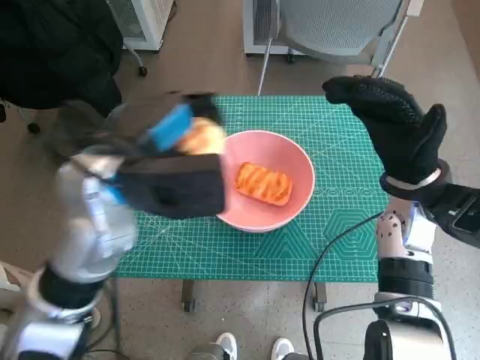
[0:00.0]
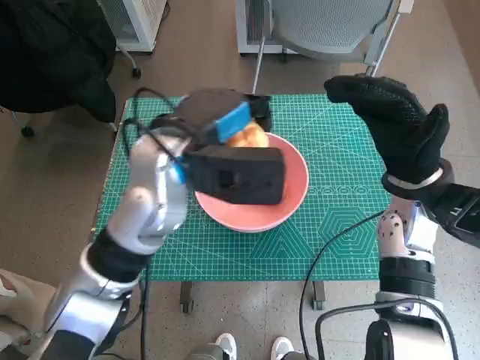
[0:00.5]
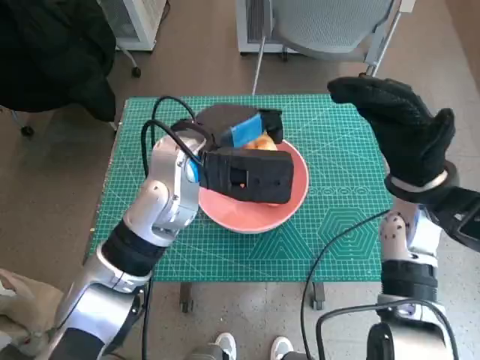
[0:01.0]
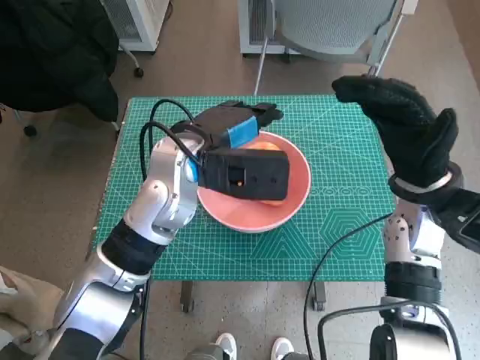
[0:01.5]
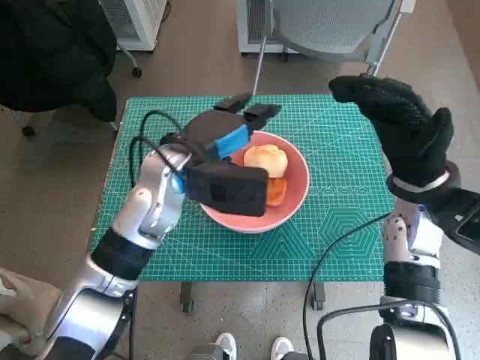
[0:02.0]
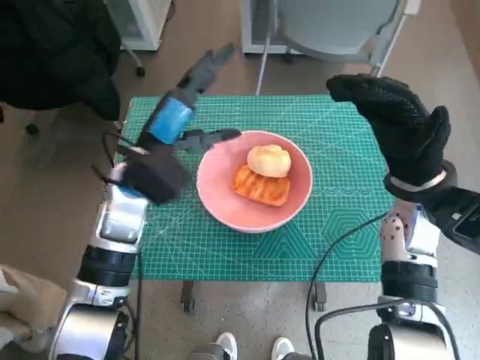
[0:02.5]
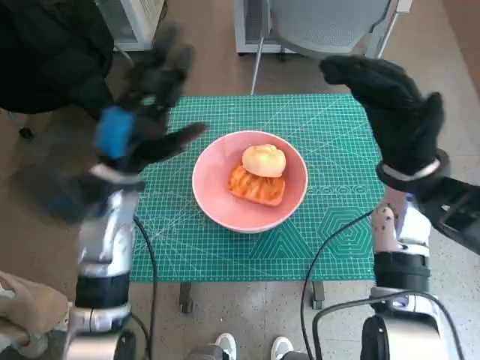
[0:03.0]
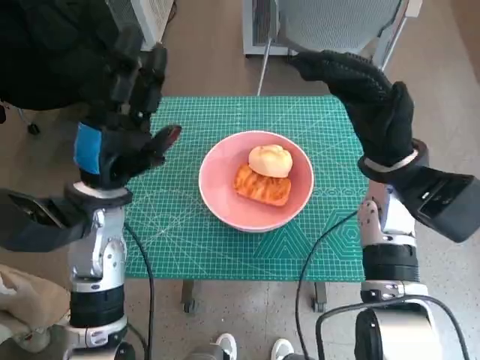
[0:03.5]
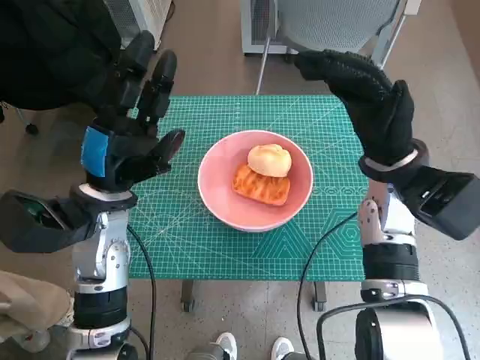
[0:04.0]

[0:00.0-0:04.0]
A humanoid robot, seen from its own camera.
0:00.0 to 0:02.0: The left hand heads downward and forward, covering about 10 cm.
0:02.0 to 0:04.0: The left hand goes about 10 cm to the left and backward.

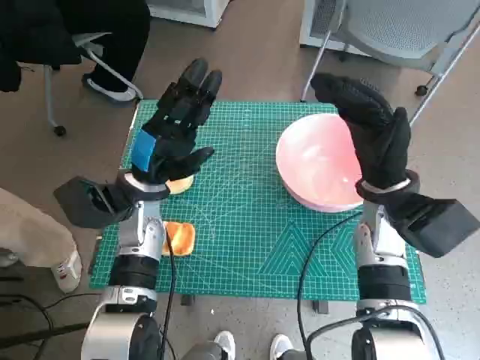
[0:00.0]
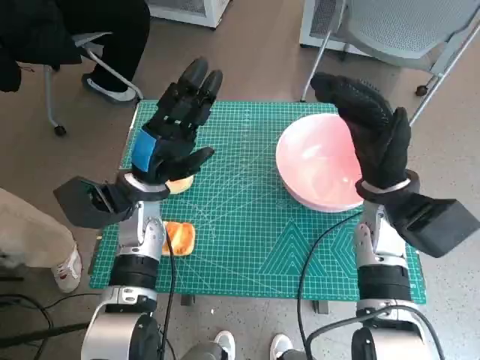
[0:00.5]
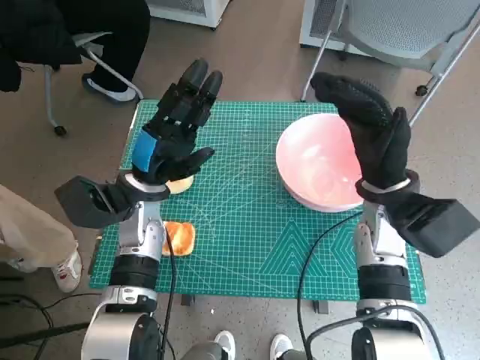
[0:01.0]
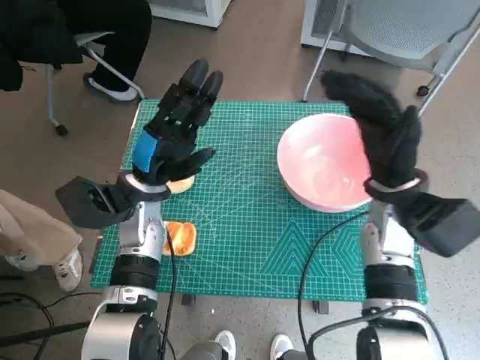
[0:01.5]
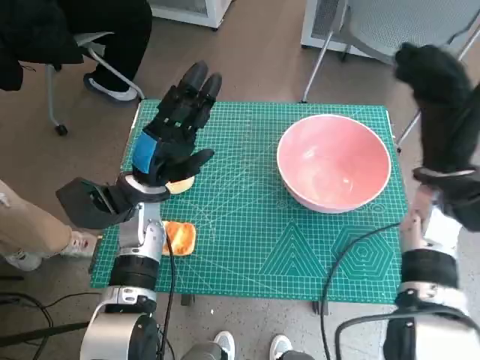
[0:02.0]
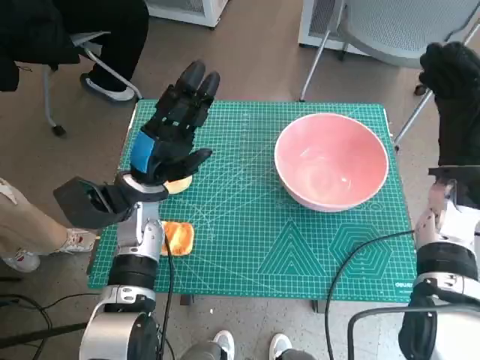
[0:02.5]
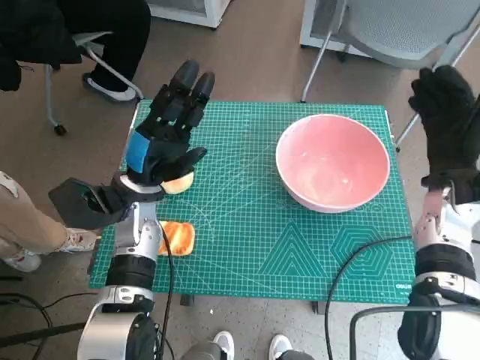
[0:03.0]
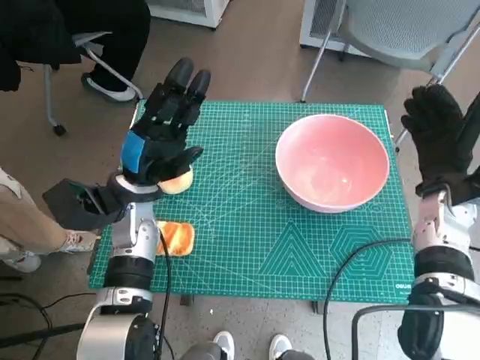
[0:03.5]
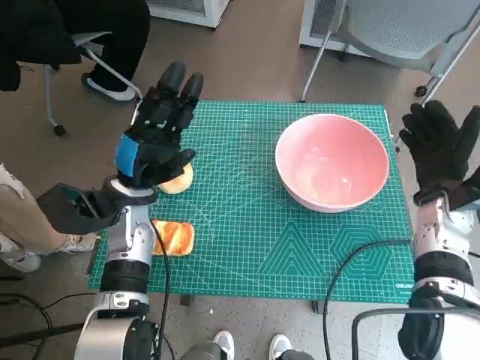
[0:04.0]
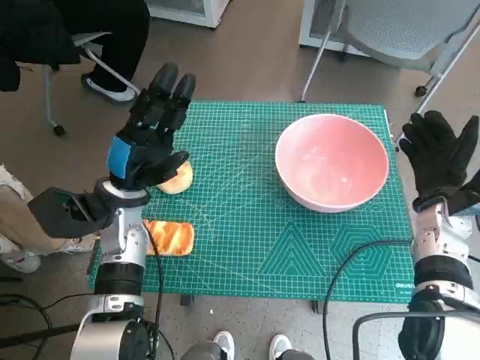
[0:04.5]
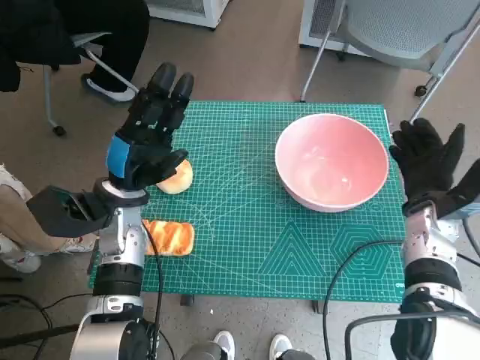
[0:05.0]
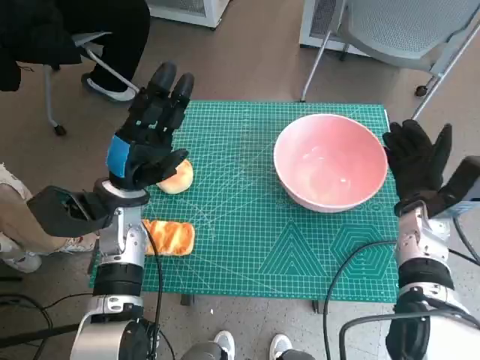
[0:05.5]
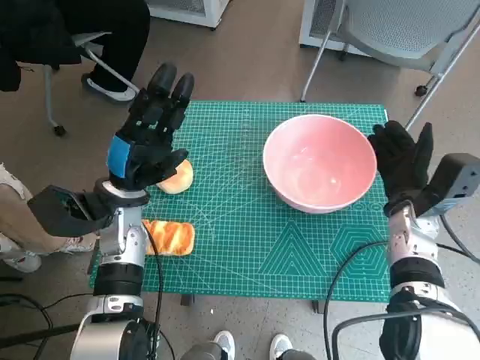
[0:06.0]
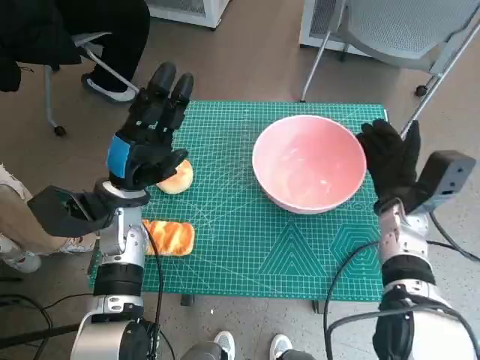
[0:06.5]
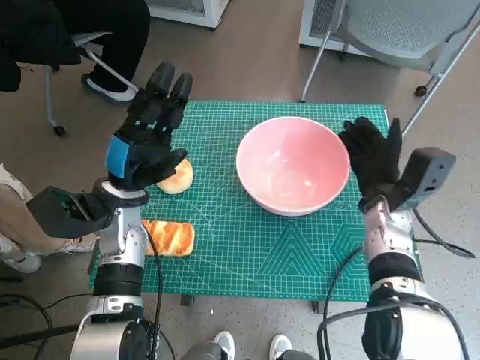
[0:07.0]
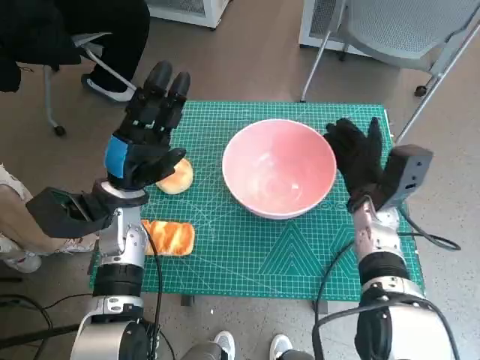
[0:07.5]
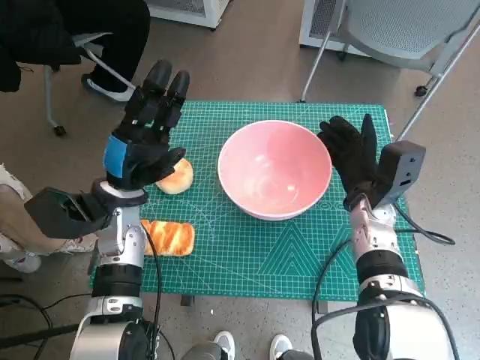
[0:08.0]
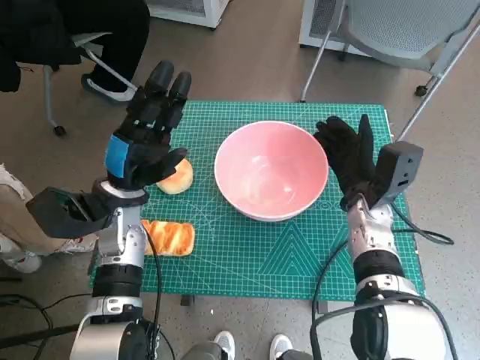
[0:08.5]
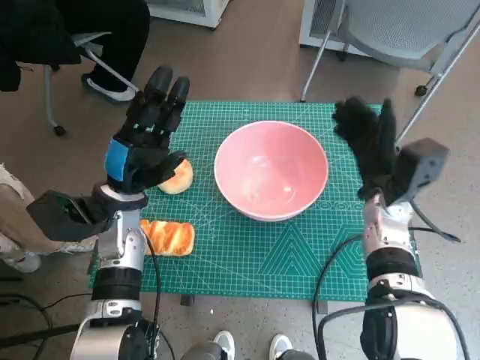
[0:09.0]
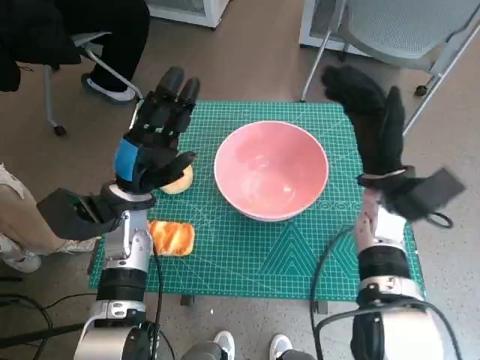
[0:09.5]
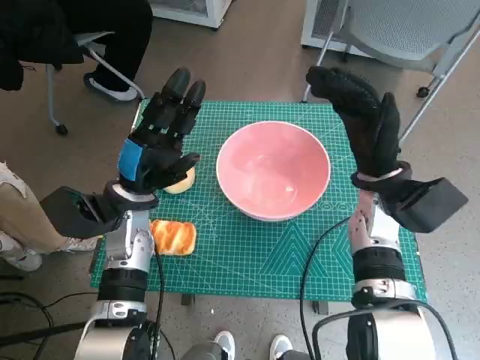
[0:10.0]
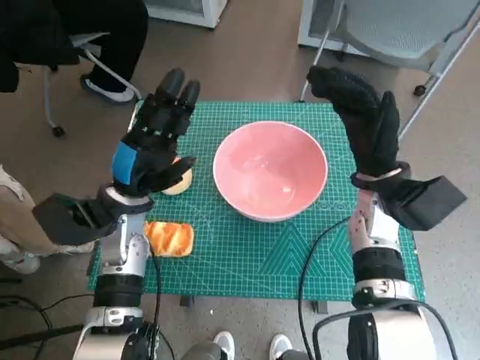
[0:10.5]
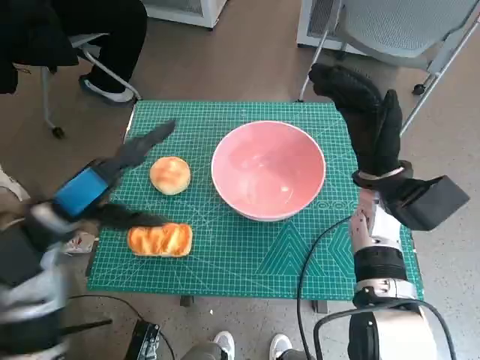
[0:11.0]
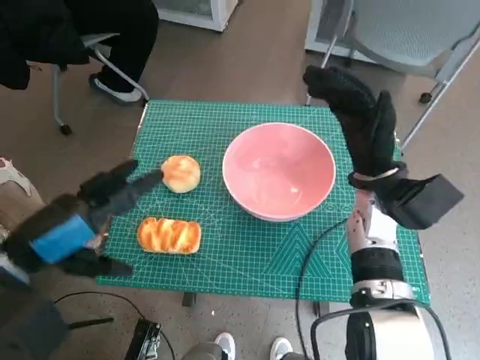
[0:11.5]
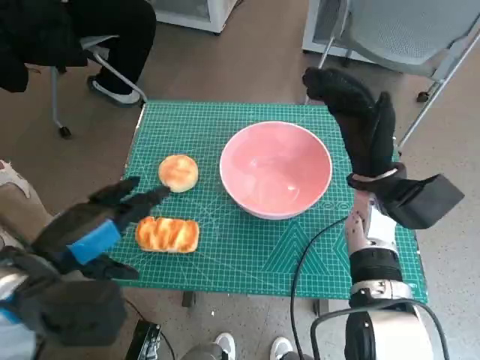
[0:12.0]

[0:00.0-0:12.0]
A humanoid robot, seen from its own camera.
Step, 0:00.0 to 0:08.5: Move the pink bowl to the center of table with right hand.
0:02.0 to 0:04.0: The right hand moves downward, approximately 5 cm.
0:04.0 to 0:06.0: The hands make only small movements.
0:06.0 to 0:08.0: The right hand goes some 5 cm to the left.
0:08.0 to 0:10.0: The right hand moves upward, roughly 5 cm.
0:10.0 to 0:12.0: The left hand shifts roughly 15 cm backward and upward.

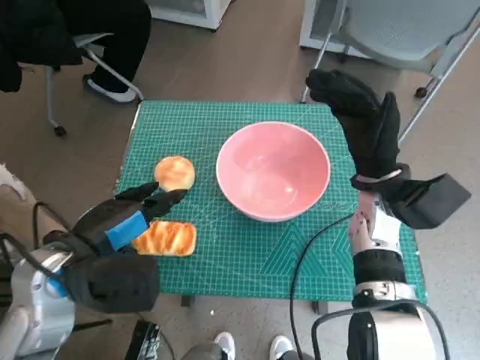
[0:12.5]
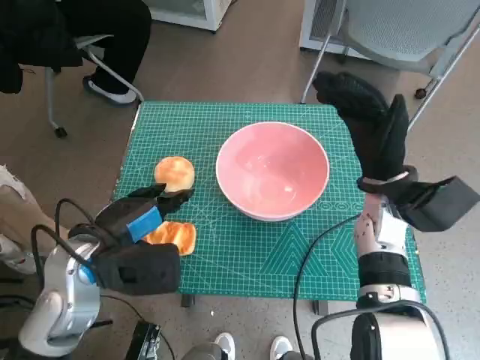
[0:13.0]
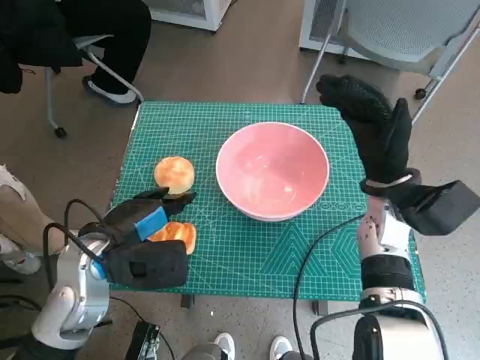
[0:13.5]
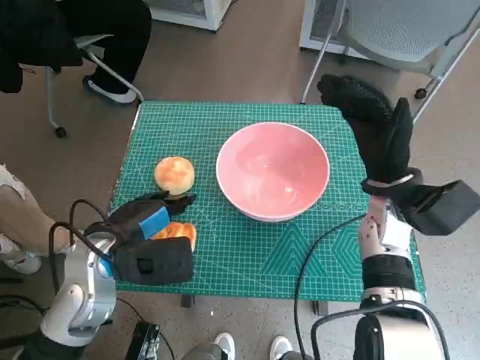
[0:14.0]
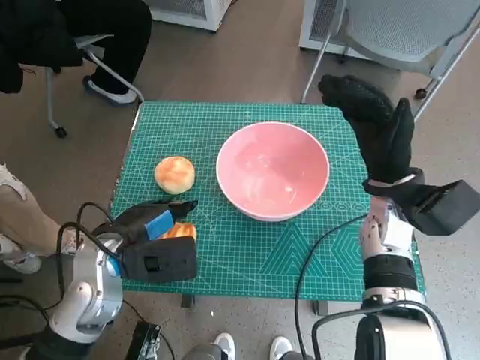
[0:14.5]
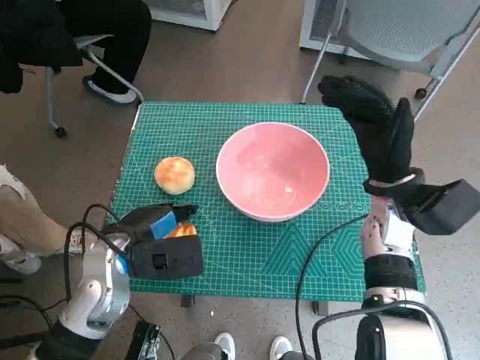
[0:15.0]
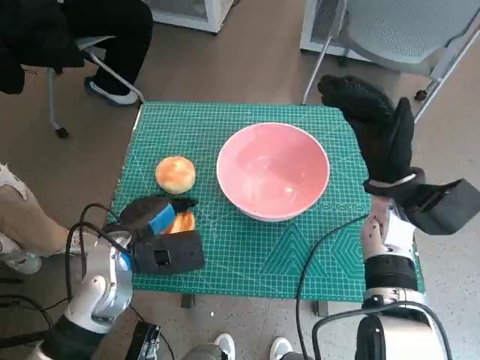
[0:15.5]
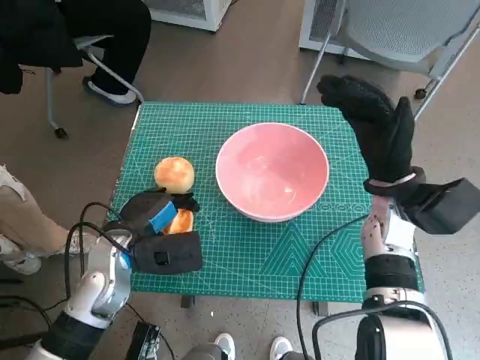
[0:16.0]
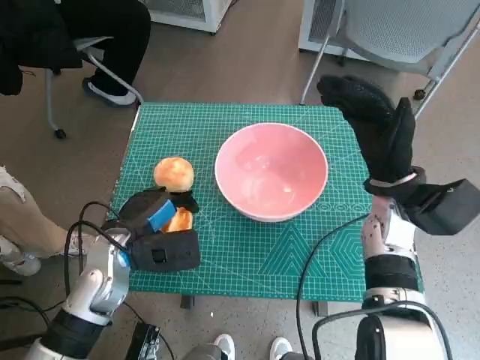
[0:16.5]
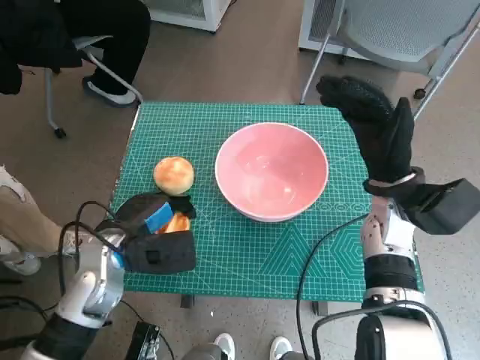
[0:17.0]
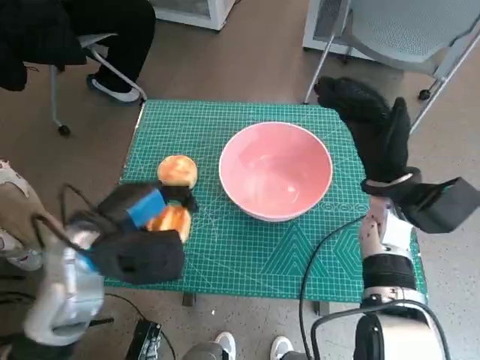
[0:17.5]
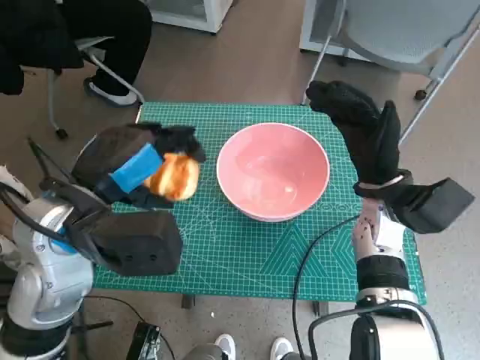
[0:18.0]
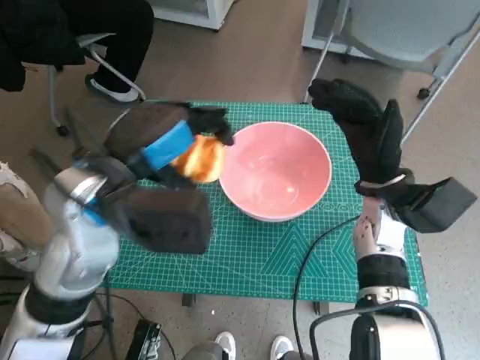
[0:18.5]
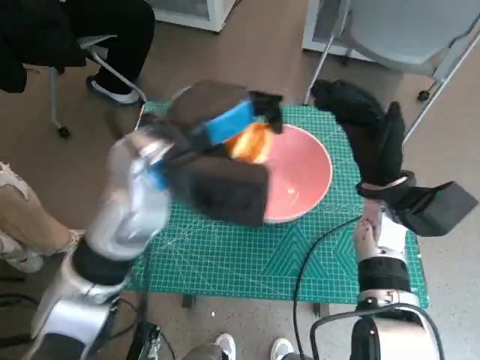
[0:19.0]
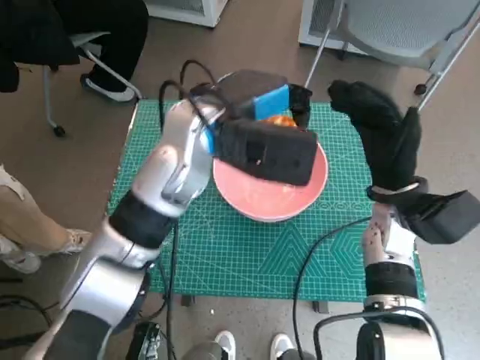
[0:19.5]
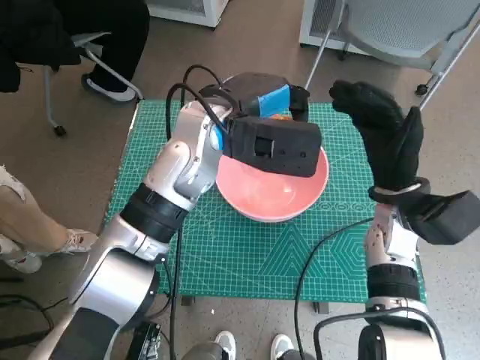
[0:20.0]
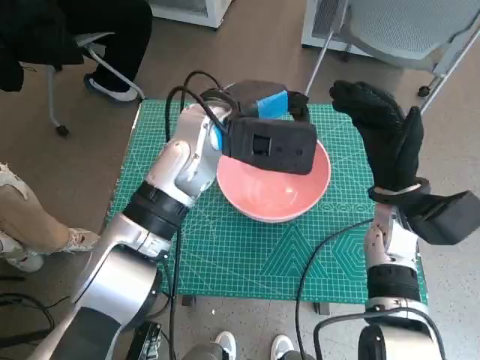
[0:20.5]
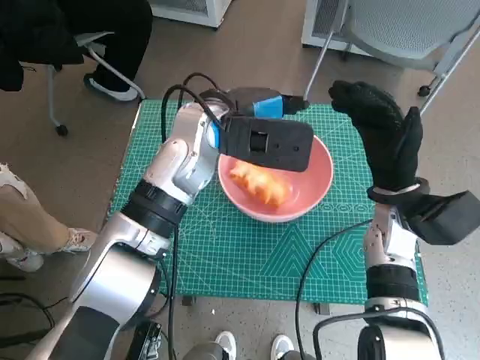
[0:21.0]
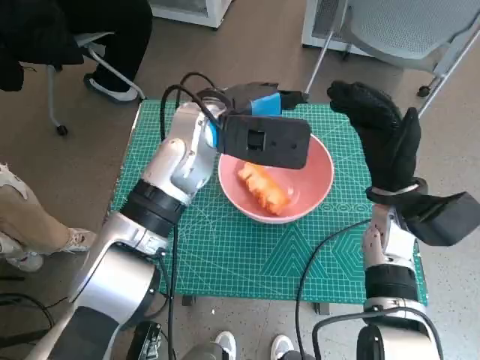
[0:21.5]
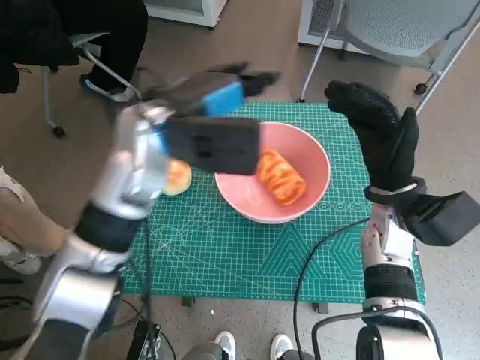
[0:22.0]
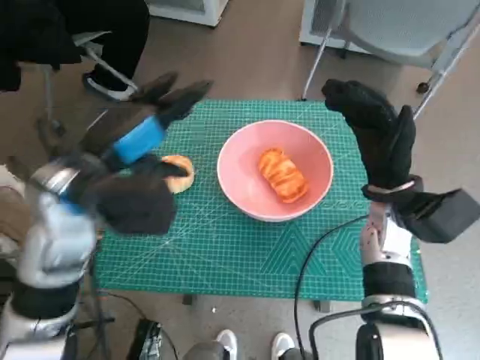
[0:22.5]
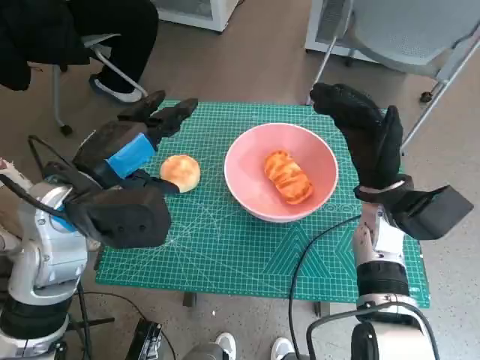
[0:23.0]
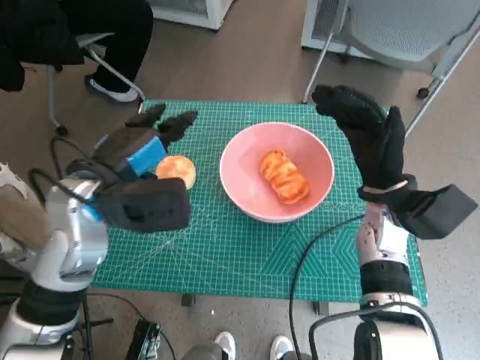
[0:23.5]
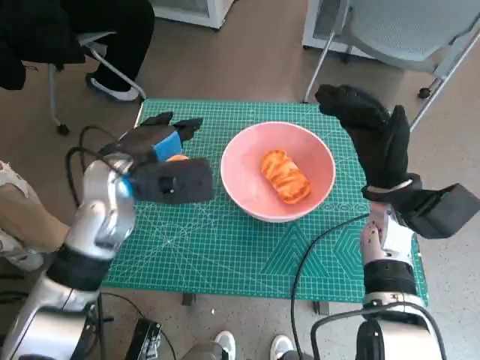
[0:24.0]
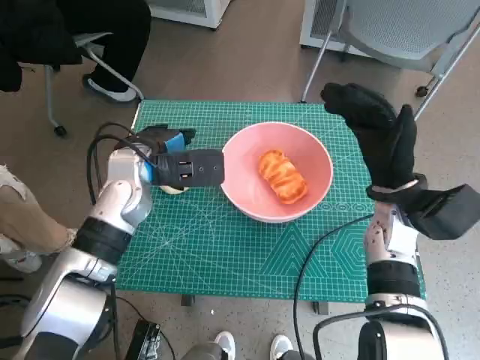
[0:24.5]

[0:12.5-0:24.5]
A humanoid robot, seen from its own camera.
Step, 0:12.5 to 0:15.5: Grasp the long bread with left hand.
Step, 0:16.0 to 0:21.0: Place the long bread in pink bowl with left hand.
0:12.5 to 0:14.5: The left hand heads downward, covering approximately 5 cm.
0:14.5 to 0:16.5: There are only small adjustments of the hands.
0:16.5 to 0:18.5: The left hand moves upward, some 15 cm.
0:18.5 to 0:20.5: The left hand is displaced forward and to the right by approximately 15 cm.
0:20.5 to 0:22.5: The left hand shifts approximately 15 cm to the left and backward.
0:22.5 to 0:24.5: The left hand travels downward and forward by approximately 10 cm.
